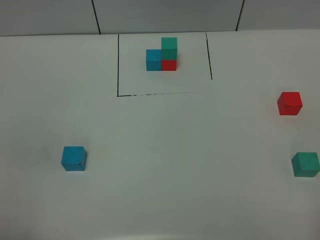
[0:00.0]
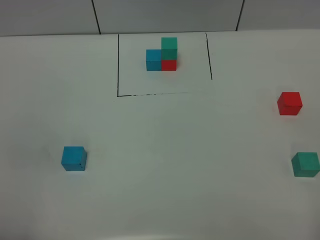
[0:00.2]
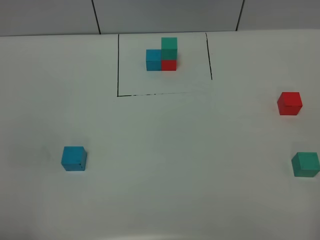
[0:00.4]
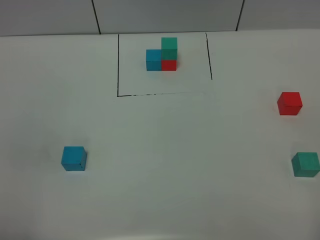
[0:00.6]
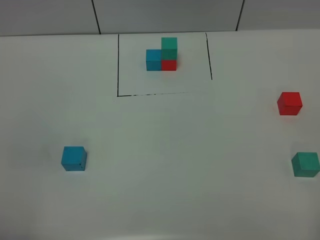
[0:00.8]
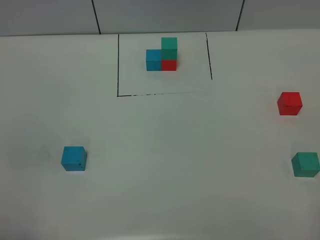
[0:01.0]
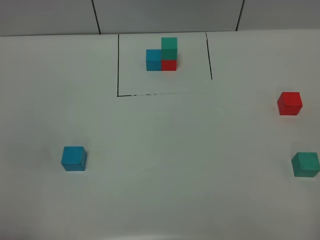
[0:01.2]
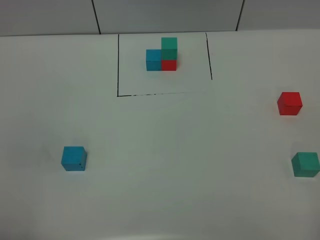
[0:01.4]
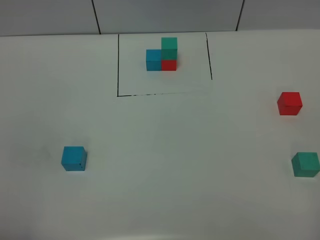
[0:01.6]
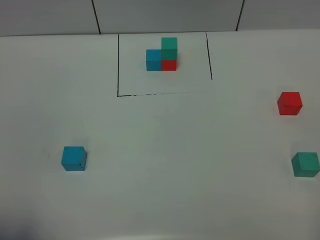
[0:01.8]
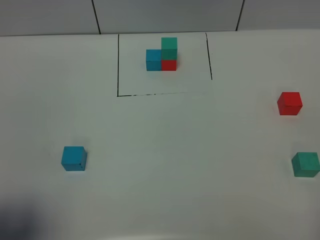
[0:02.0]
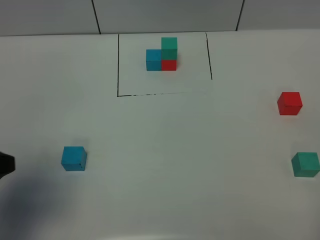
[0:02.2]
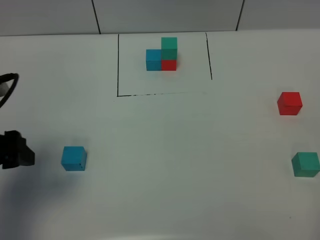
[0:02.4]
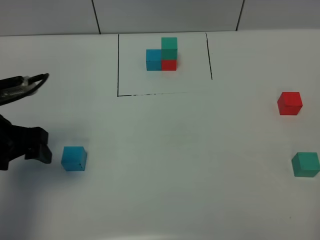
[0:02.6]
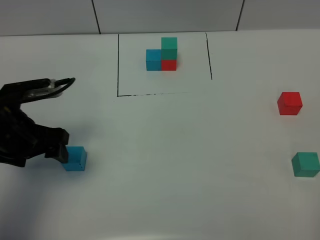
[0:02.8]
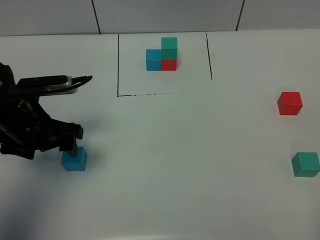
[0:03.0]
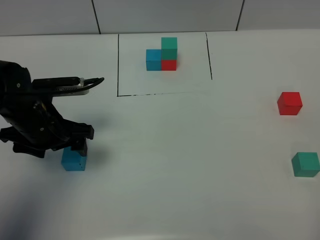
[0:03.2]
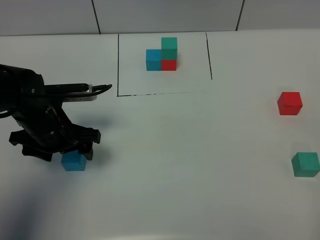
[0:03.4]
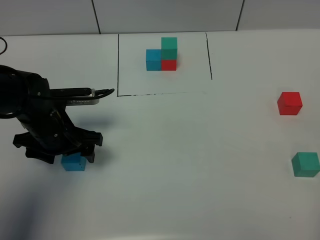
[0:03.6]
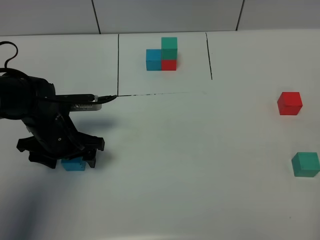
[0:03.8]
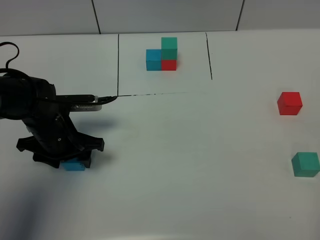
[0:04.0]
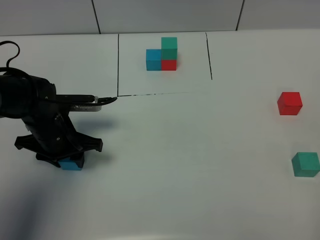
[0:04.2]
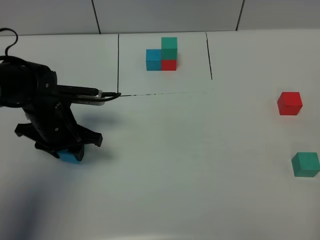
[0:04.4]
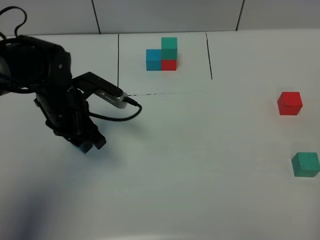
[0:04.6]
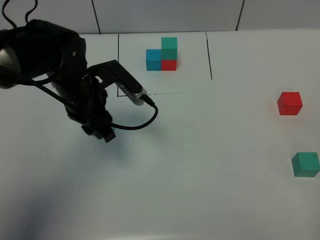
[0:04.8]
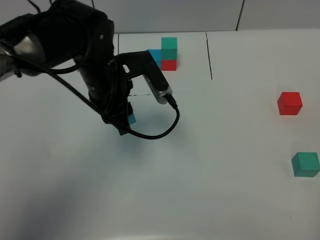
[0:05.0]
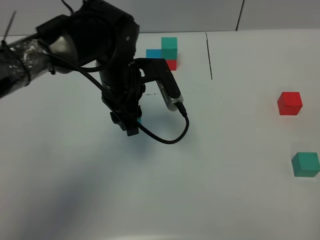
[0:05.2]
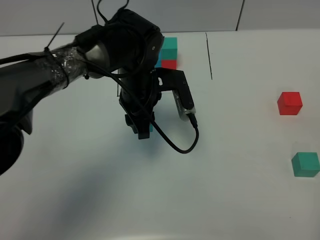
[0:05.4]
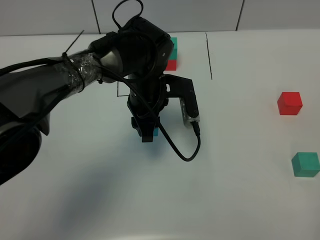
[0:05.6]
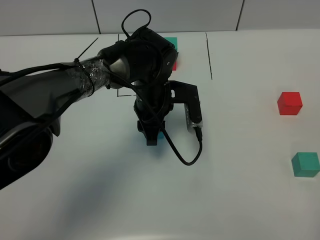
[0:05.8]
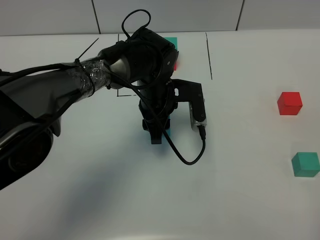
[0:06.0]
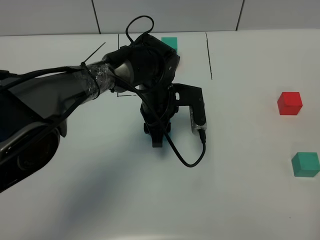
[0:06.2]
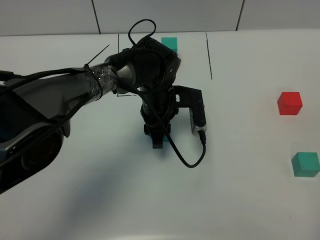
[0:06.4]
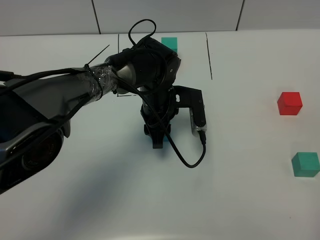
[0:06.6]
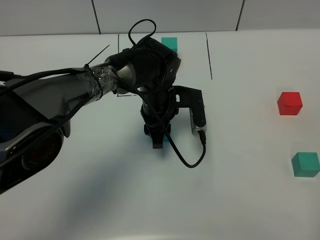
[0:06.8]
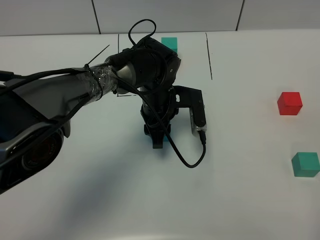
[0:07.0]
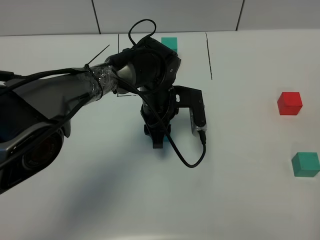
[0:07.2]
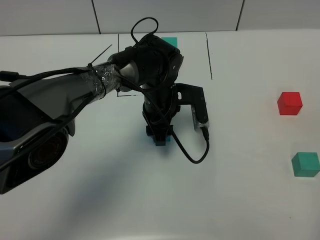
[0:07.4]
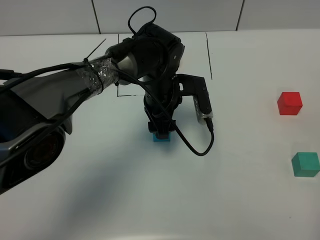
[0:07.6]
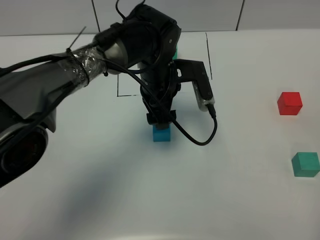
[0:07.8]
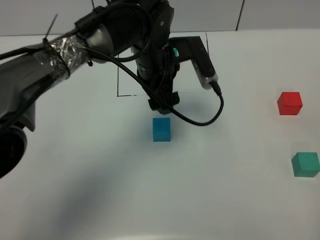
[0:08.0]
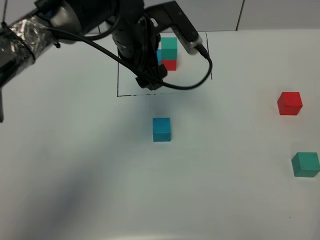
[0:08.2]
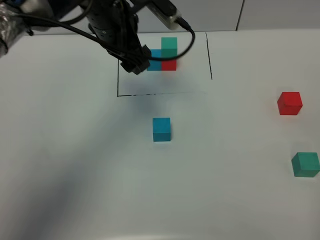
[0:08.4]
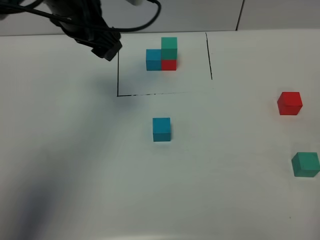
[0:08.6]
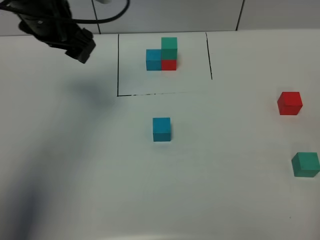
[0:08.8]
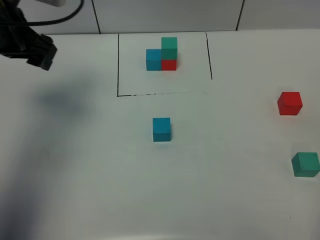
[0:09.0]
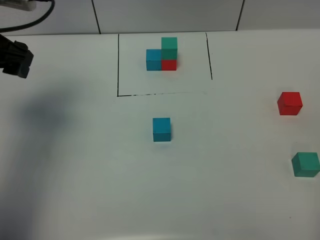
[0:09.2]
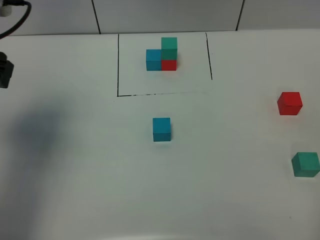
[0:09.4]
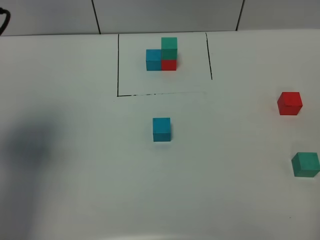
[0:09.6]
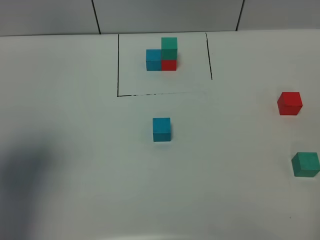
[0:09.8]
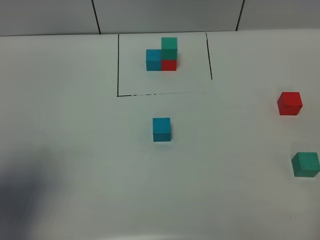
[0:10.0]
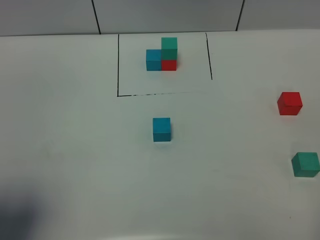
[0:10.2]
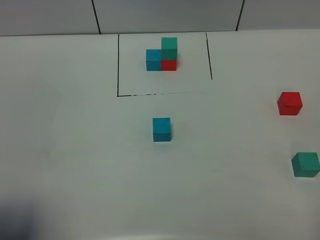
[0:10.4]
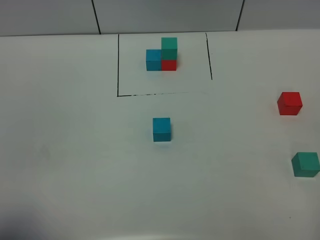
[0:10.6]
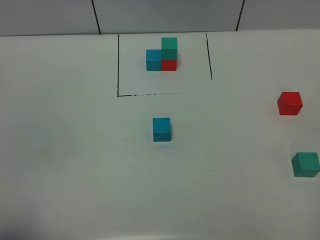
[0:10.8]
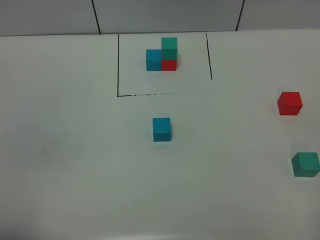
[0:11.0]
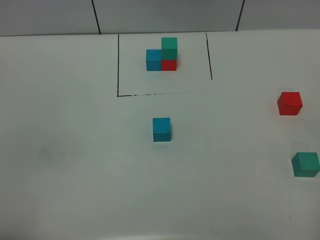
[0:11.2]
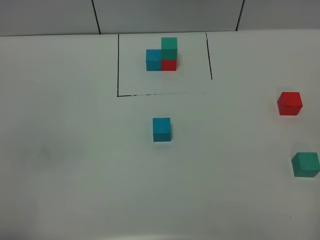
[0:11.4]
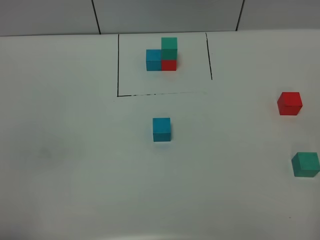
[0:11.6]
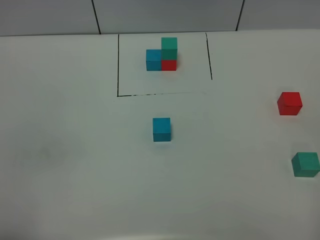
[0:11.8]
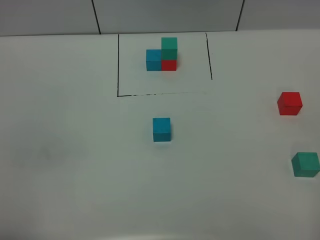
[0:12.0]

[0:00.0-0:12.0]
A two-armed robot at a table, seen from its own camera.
Task of the whole recording: According to the building block template in front, assemble the scattered blocks together.
Step, 0:00.0 to 0:07.2: Put the blue build block in the center of the table.
0:00.0 to 0:01.6: Neither gripper changes place.
0:01.6 to 0:03.0: The left gripper travels forward by approximately 30 cm.
0:03.0 to 0:04.4: The left gripper changes place by about 5 cm, and closes.
0:04.4 to 0:06.0: The left gripper moves to the right, roughly 20 cm.
0:06.0 to 0:07.6: The left gripper opens.
0:07.6 to 0:09.0: The left gripper goes roughly 30 cm to the left and upward.
0:09.0 to 0:10.4: The left gripper travels backward by roughly 30 cm.
0:10.4 to 0:12.0: The left gripper goes some 10 cm backward and downward.

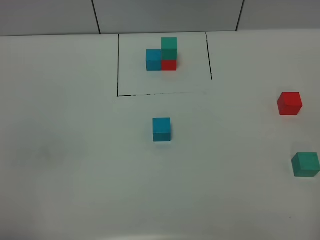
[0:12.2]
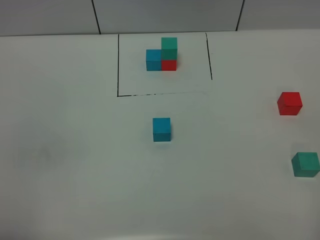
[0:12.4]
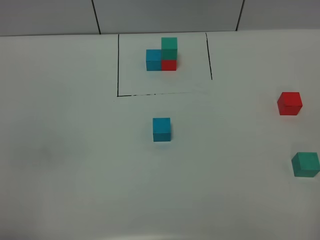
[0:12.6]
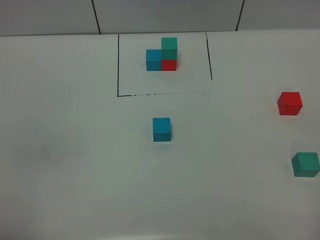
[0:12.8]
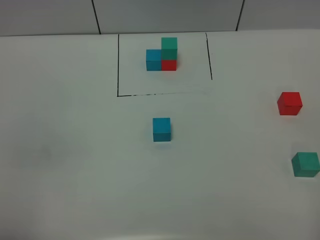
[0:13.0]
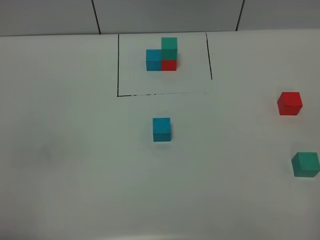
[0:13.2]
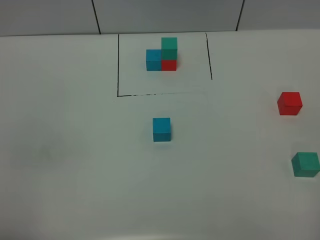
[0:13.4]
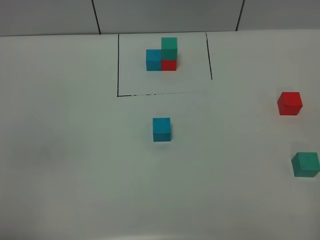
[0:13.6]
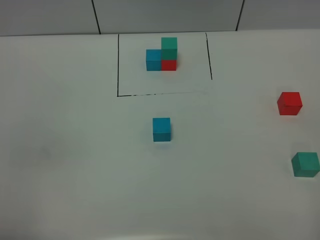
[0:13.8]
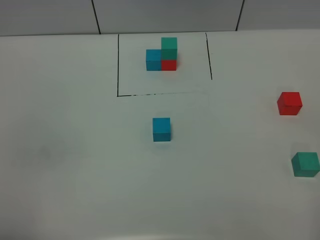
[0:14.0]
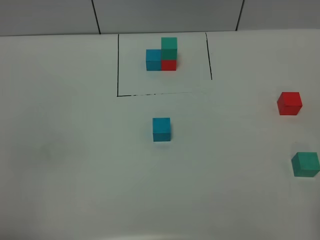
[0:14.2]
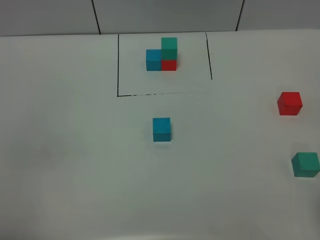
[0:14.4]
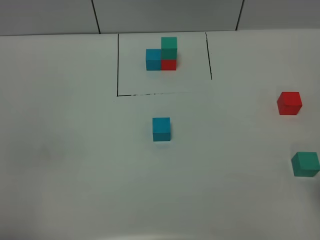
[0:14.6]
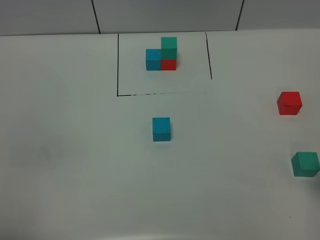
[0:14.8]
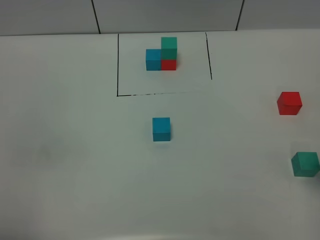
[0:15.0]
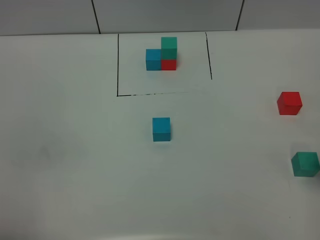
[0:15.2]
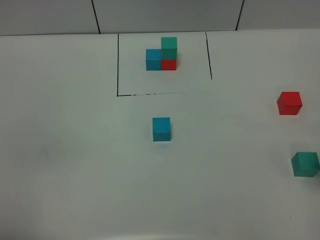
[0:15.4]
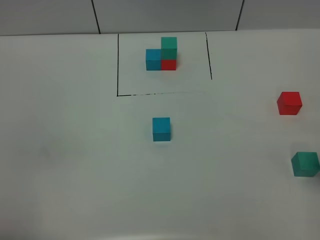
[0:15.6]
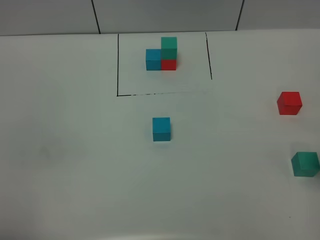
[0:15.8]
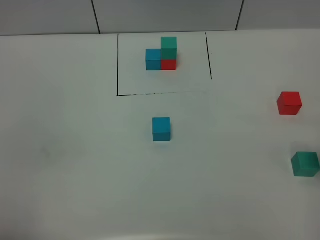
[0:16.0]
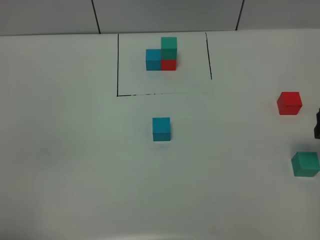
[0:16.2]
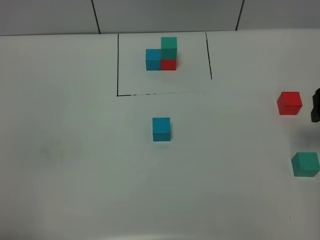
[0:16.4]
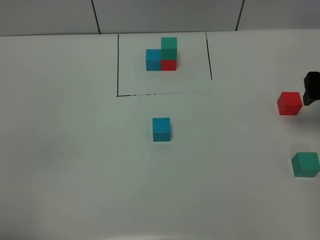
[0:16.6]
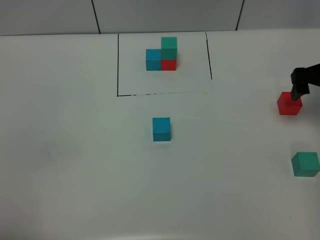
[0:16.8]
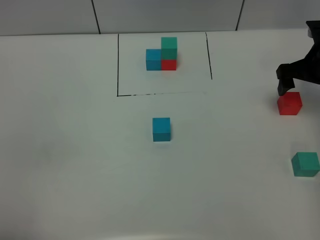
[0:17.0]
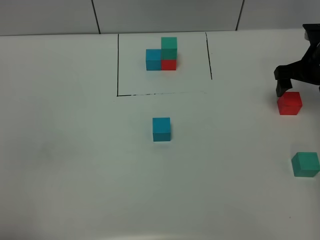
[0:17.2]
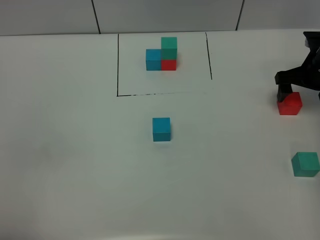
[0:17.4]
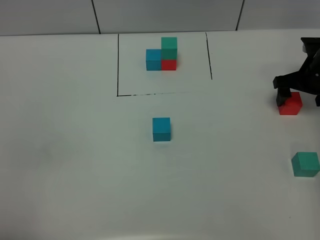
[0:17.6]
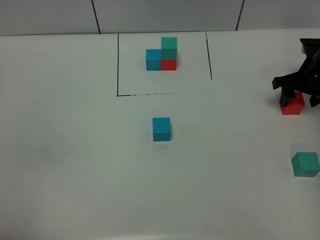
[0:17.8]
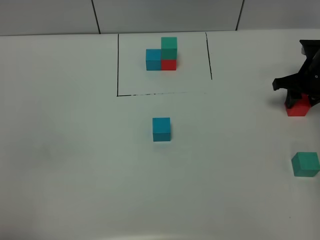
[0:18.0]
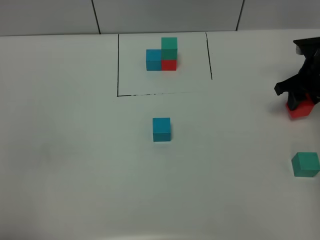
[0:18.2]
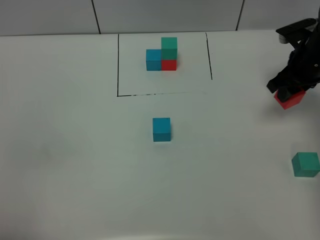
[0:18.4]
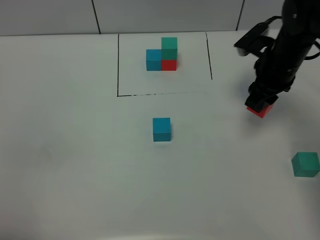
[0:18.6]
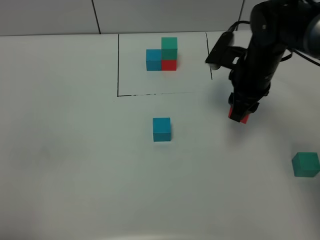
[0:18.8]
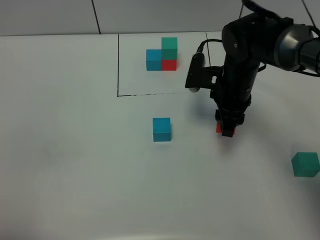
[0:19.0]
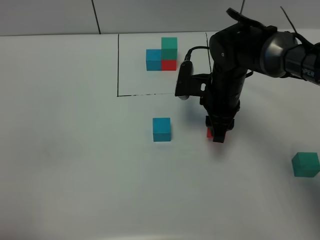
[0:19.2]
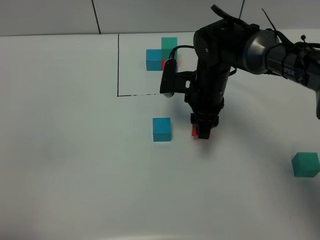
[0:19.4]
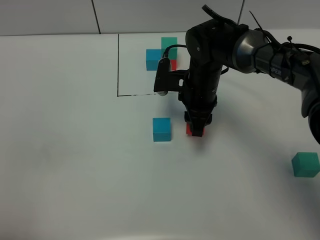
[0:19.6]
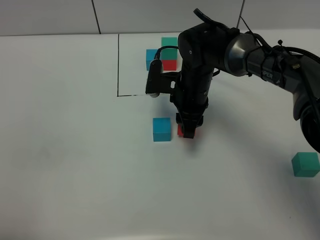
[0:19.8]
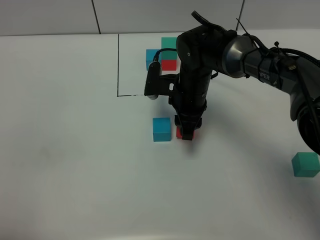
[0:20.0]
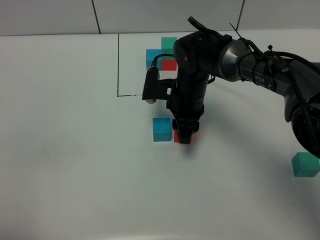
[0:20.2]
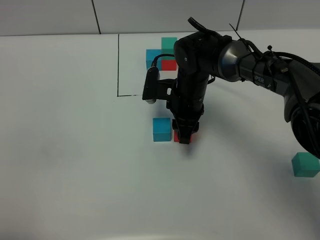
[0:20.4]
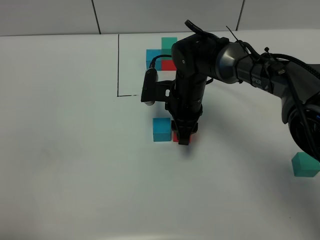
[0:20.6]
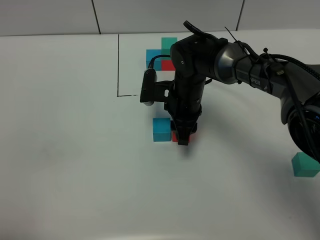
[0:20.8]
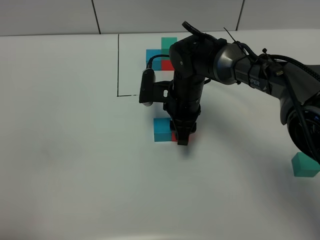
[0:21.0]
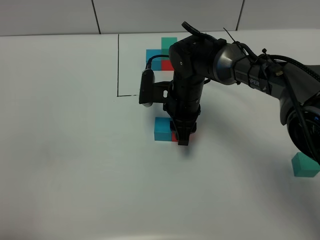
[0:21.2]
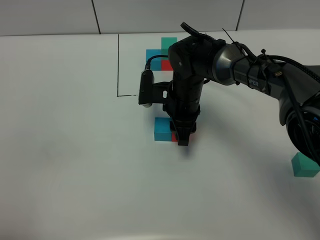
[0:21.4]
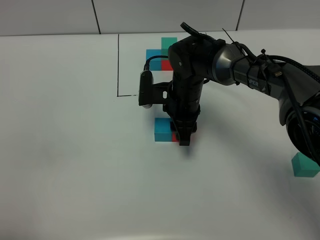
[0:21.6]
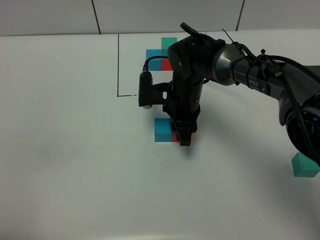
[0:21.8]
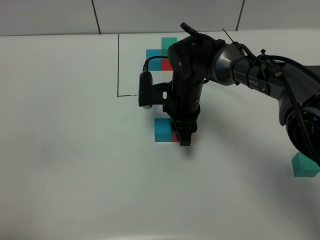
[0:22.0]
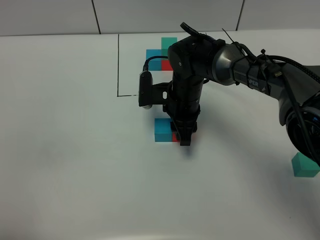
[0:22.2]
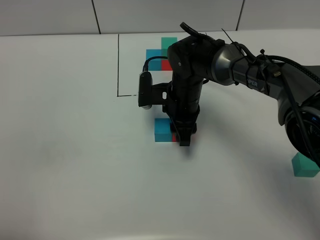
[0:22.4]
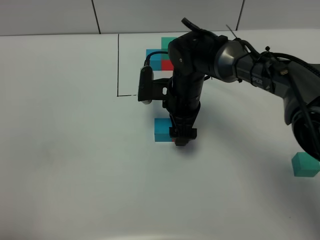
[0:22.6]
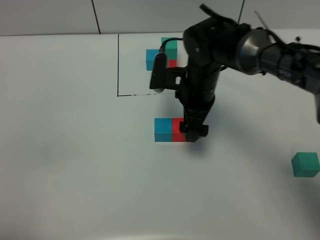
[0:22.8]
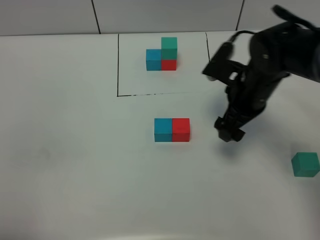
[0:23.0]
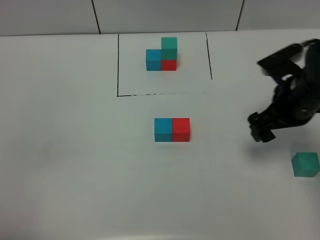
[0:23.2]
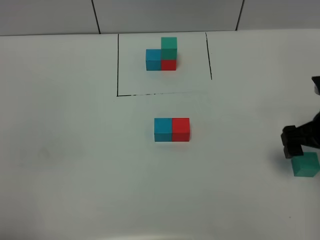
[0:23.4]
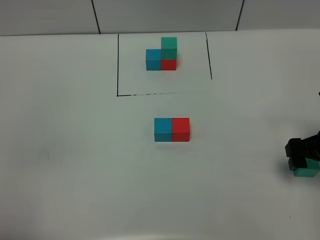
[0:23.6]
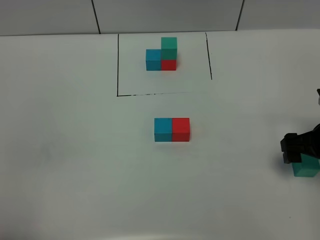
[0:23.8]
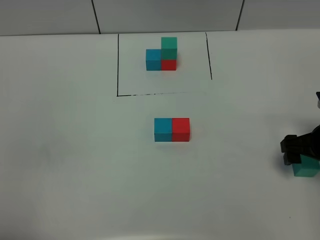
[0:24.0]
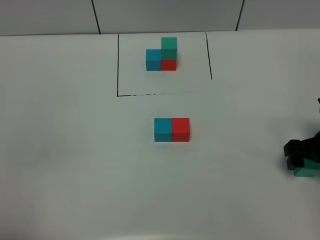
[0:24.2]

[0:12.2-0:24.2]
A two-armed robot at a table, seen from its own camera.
Task of the whole recording: According to the building block template in front, assemble the scattered blocks together.
Step, 0:12.2 to 0:22.6: Put the red build block on the right of the blue build block.
0:12.2 to 0:13.8: Both grippers stay put.
0:15.2 to 0:16.6: The right gripper shifts roughly 15 cm forward.
0:16.6 to 0:18.2: The right gripper shifts roughly 10 cm forward and downward, and closes.
0:18.2 to 0:19.8: The right gripper moves to the left, approximately 25 cm.
0:19.8 to 0:21.2: The grippers move only a little.
0:21.2 to 0:22.6: The right gripper opens.
0:22.6 to 0:24.2: The right gripper heads to the right, covering about 25 cm.
